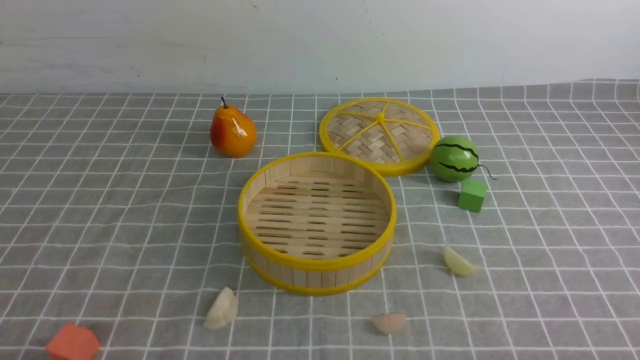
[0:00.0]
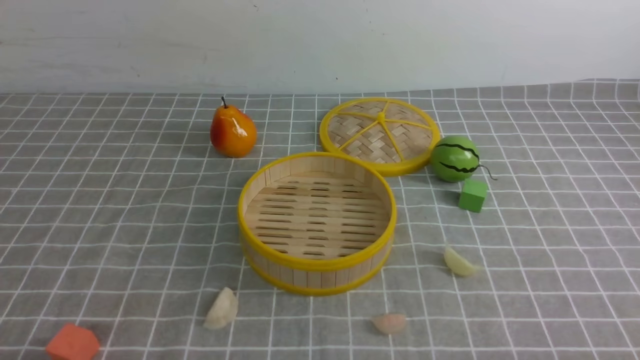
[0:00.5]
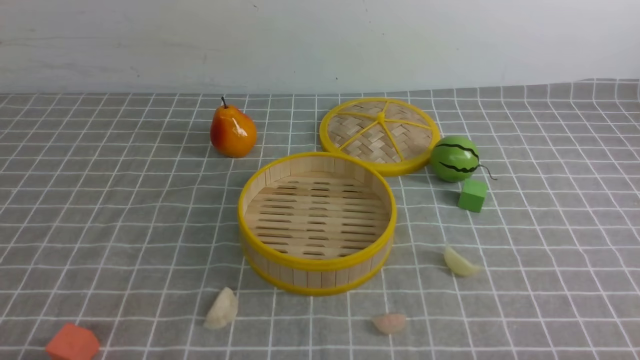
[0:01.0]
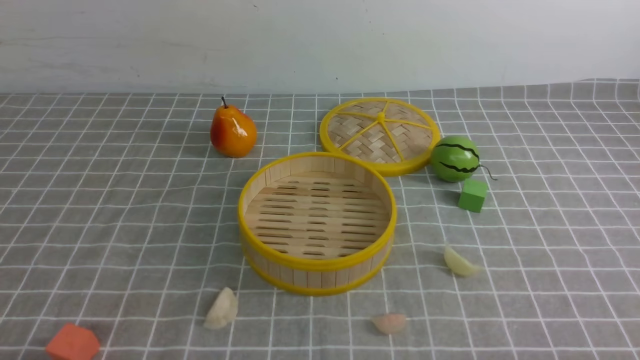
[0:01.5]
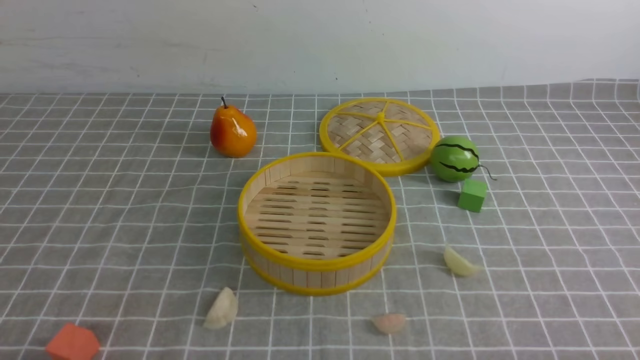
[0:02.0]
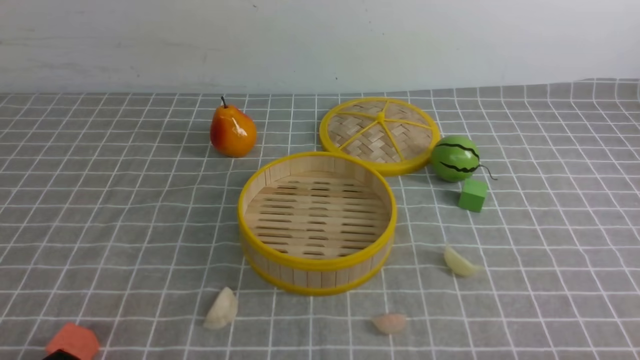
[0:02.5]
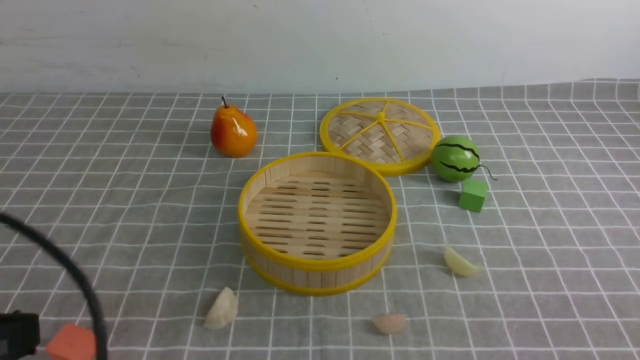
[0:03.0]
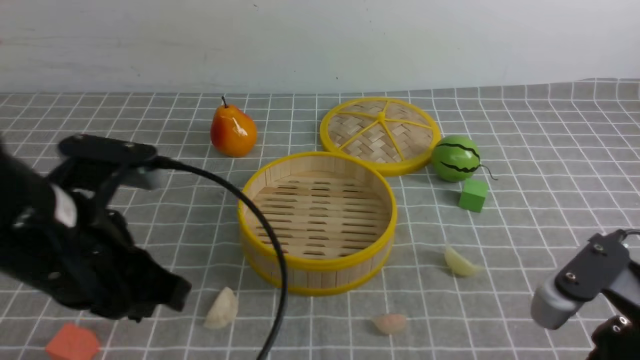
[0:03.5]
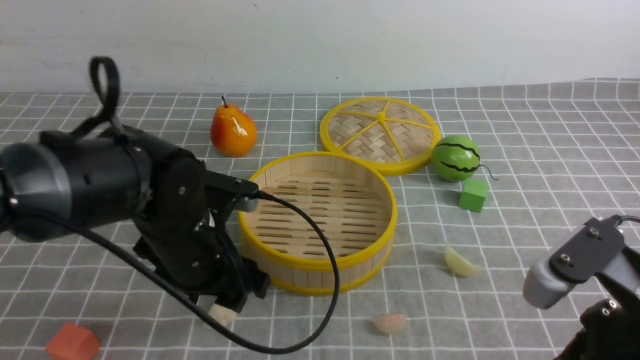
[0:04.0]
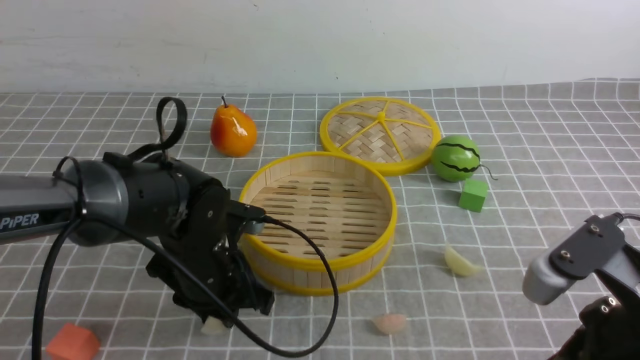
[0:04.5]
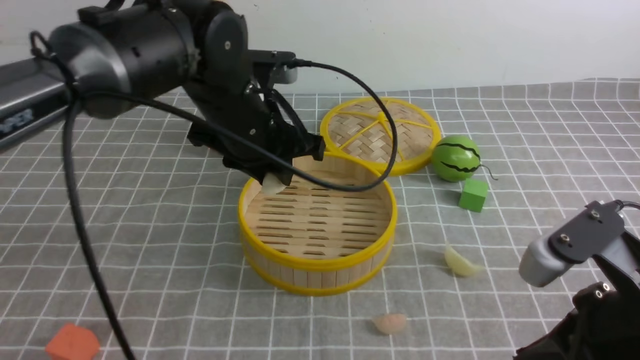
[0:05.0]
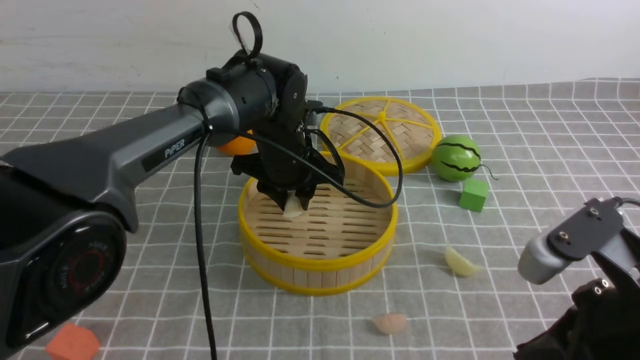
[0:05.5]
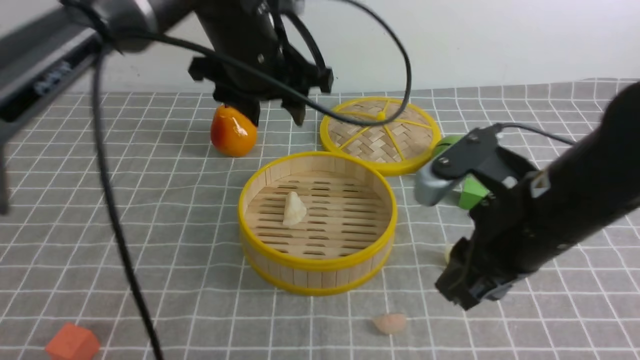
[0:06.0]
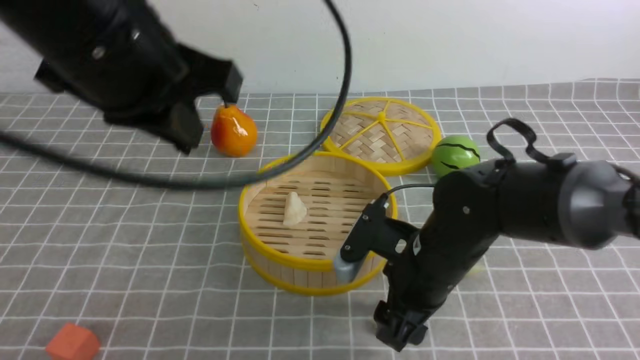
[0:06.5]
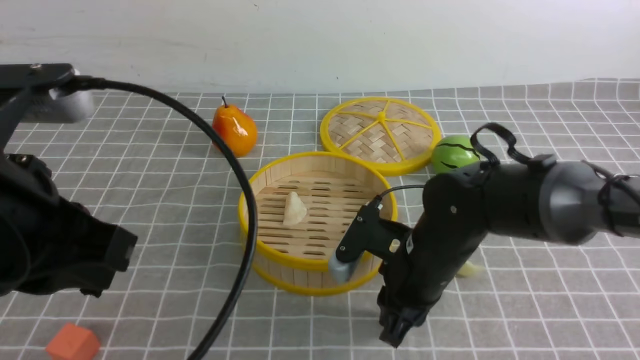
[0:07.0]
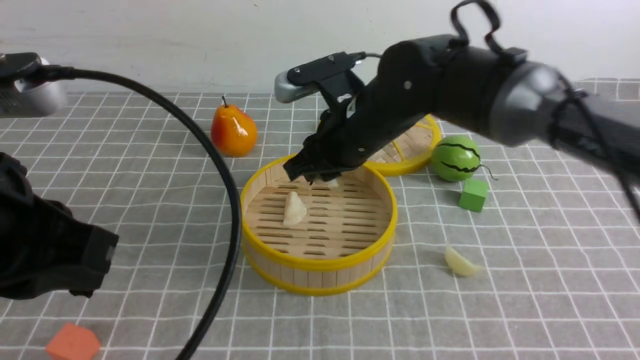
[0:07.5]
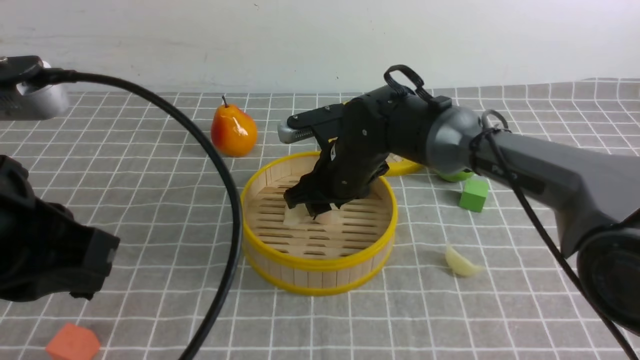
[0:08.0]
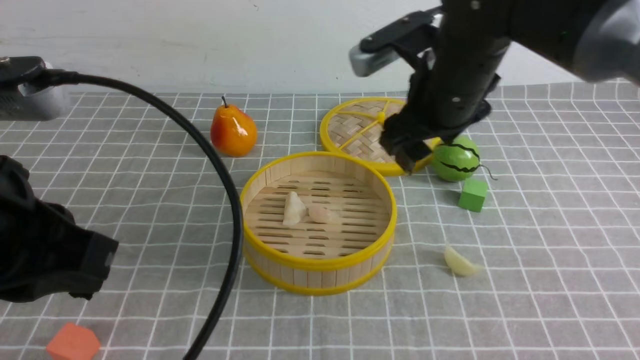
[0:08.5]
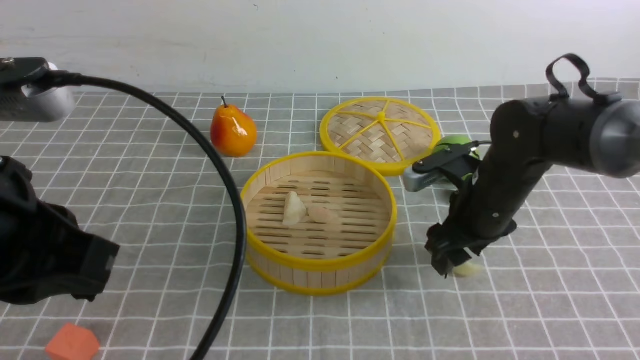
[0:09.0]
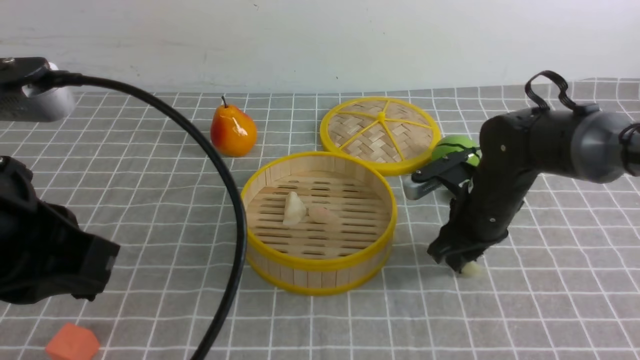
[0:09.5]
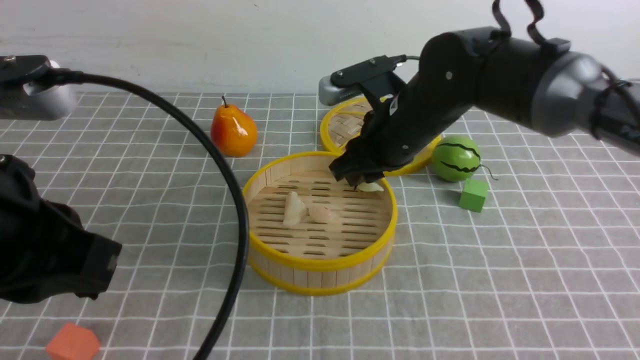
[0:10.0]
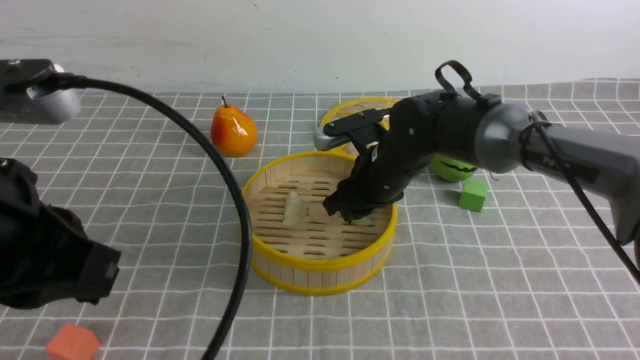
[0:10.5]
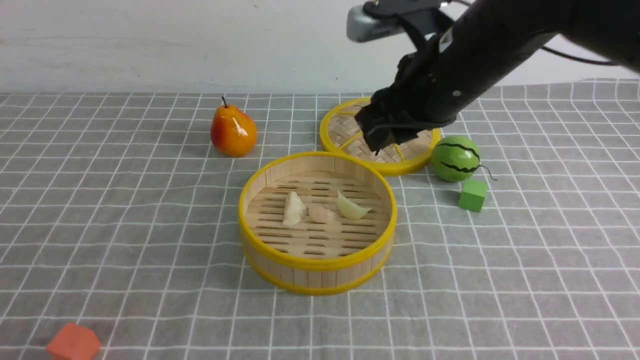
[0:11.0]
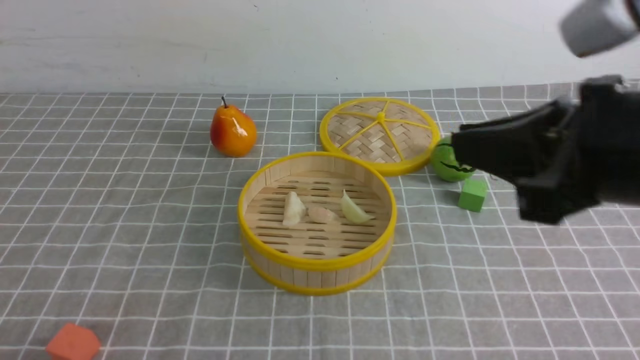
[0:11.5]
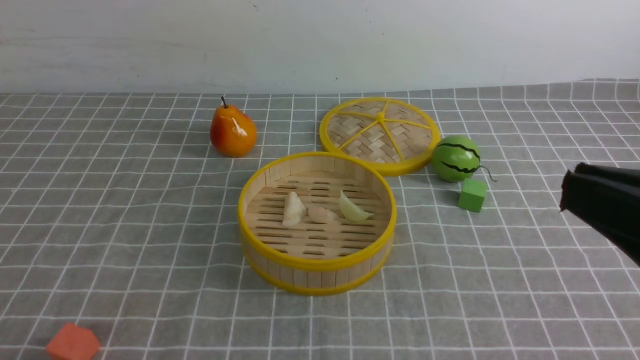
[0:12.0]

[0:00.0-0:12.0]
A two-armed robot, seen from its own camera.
Task of the whole recording: put the dumplings into the steamer on the table with the grey tablecloth.
Step, 0:00.0 to 0:04.5: use the left arm to grab a dumpling.
Step, 0:05.0 to 0:05.5: use the left arm to put the dumpling into the steamer.
Step, 0:06.5 to 0:07.0: use the right arm to grab a dumpling.
Step, 0:07.5 to 0:08.0: use the right arm to put the dumpling into the steamer.
Step, 0:08.5 to 0:09.5: use the right arm to grab a dumpling.
Step, 0:10.0 to 0:10.5: use the right arm to put the dumpling into the steamer.
0:02.0 to 0:04.0: The right gripper heads upward, to the left and forward, covering some 15 cm, and closes; the left gripper travels forward and to the right by approximately 25 cm, and opens its fingers.
0:04.0 to 0:06.0: The left gripper heads forward, upward and to the right, covering some 20 cm, and closes, then opens again. The right gripper is displaced forward by roughly 10 cm, and opens up.
0:06.0 to 0:08.0: The left gripper is displaced backward and to the left by some 30 cm, and closes its fingers. The right gripper travels forward, to the left and downward by approximately 25 cm.
0:08.0 to 0:10.0: The right gripper heads to the right, covering roughly 5 cm, and opens, then closes again.
0:10.0 to 0:12.0: The right gripper shifts approximately 30 cm backward and to the right. The left gripper travels backward, downward and to the left by approximately 20 cm.

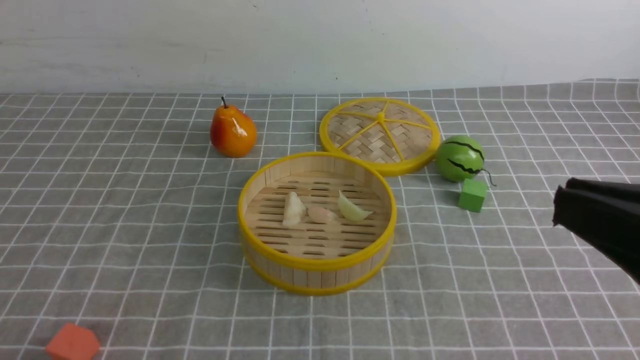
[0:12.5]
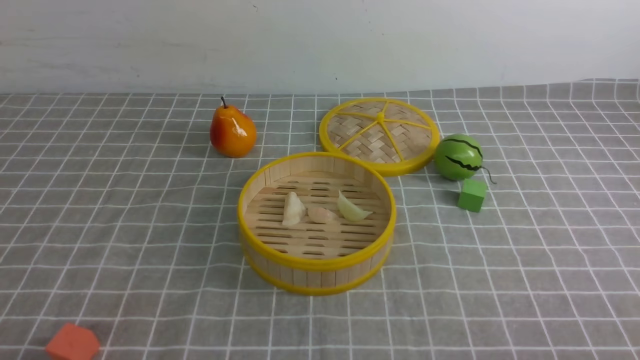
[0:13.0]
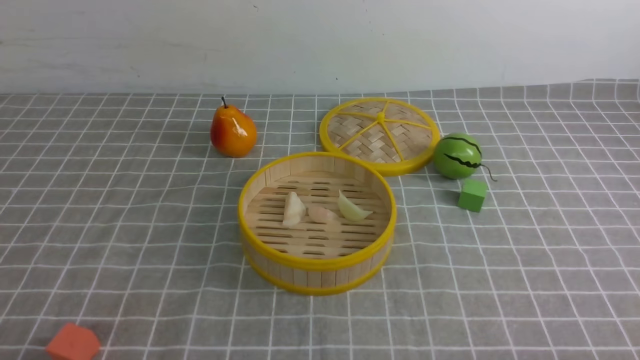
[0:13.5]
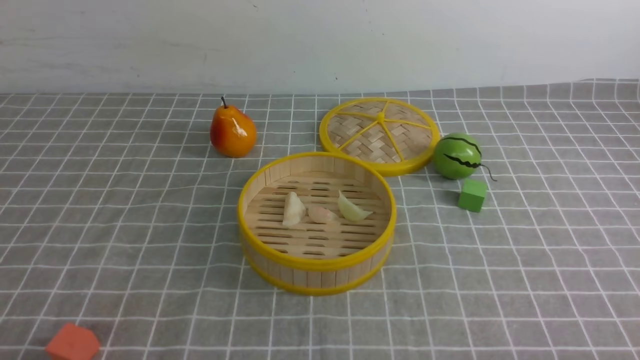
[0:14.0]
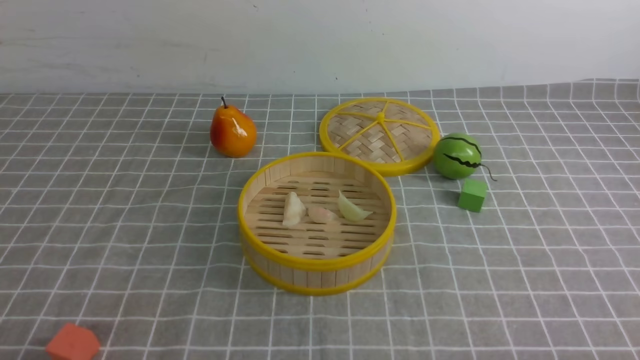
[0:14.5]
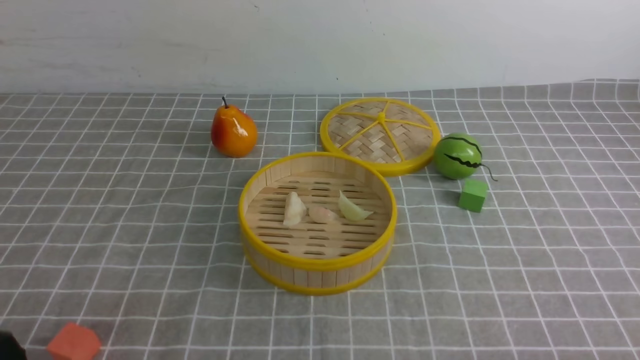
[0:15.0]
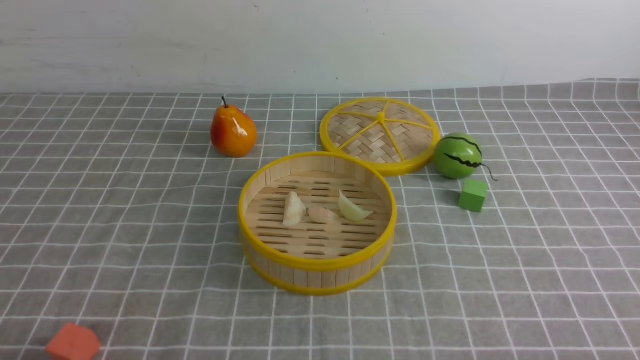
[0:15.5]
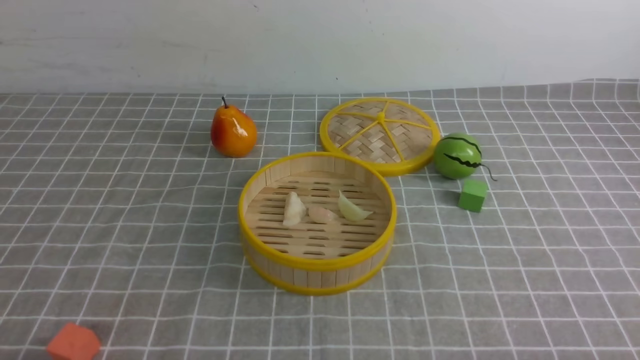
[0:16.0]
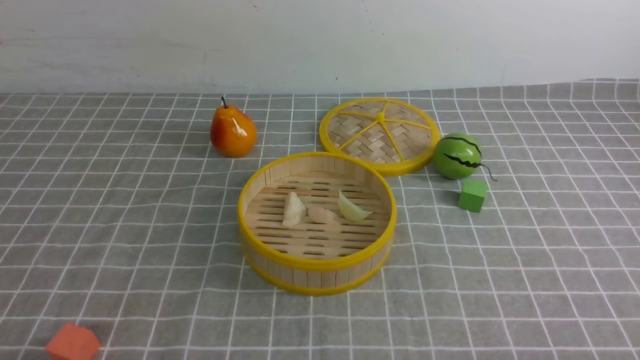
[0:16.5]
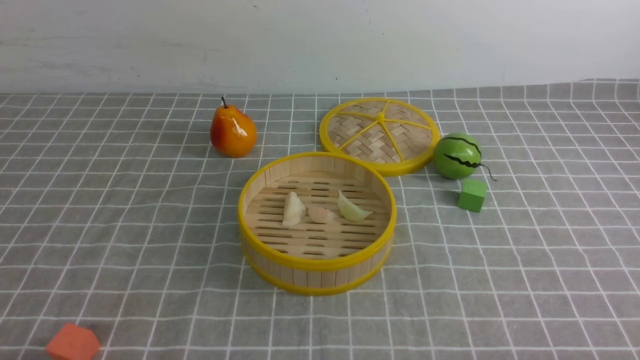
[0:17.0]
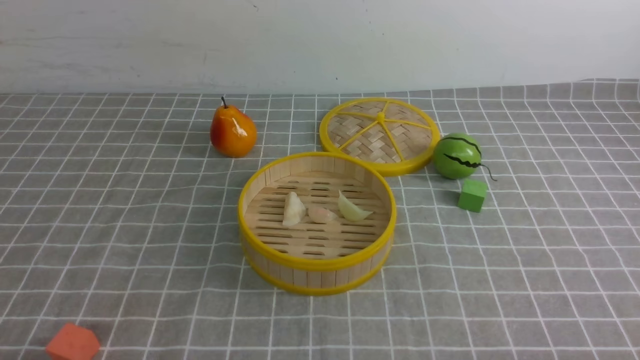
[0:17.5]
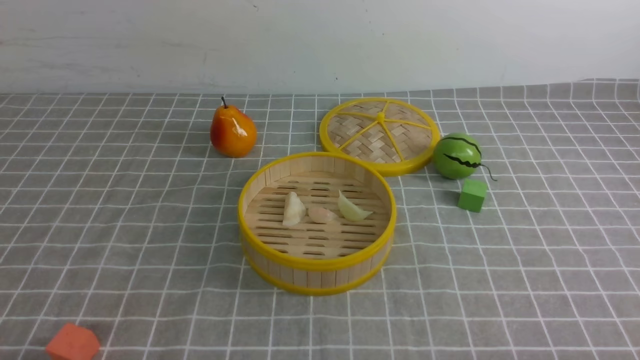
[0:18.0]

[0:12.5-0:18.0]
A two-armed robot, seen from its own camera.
Task of the whole recording: put the dumplings into the steamer on the table with the grey tablecloth.
0:12.5 to 0:14.5: The right gripper shifts roughly 20 cm downward and to the right.
0:16.0 to 0:18.0: Both grippers stay about where they are.

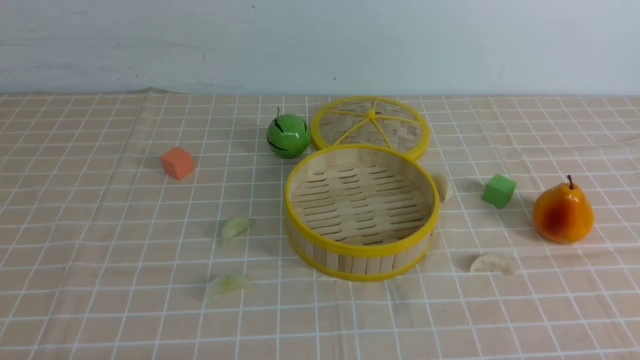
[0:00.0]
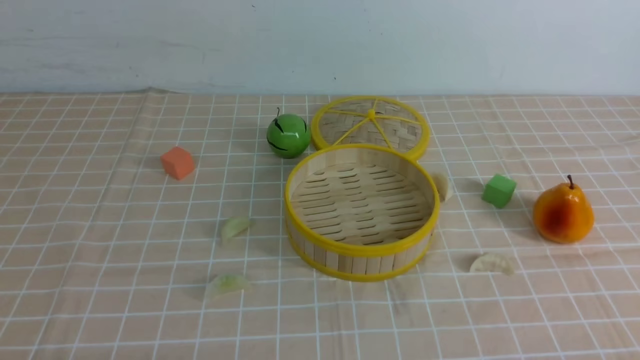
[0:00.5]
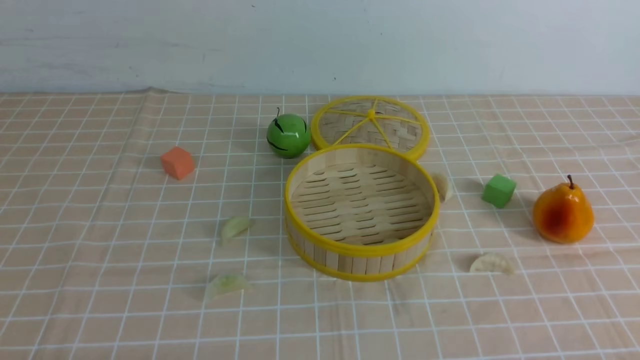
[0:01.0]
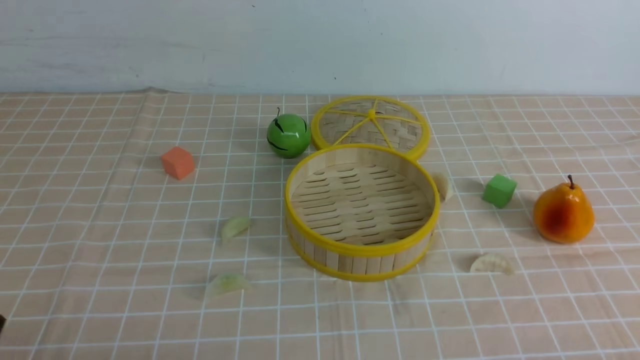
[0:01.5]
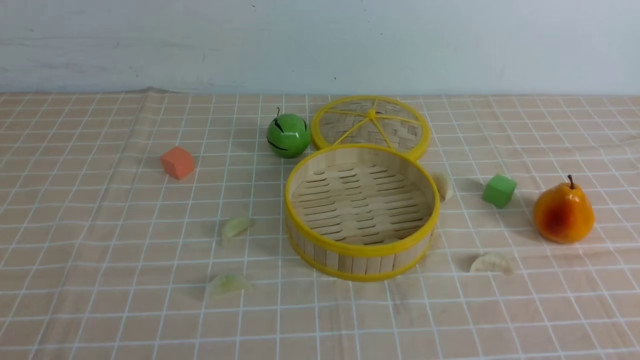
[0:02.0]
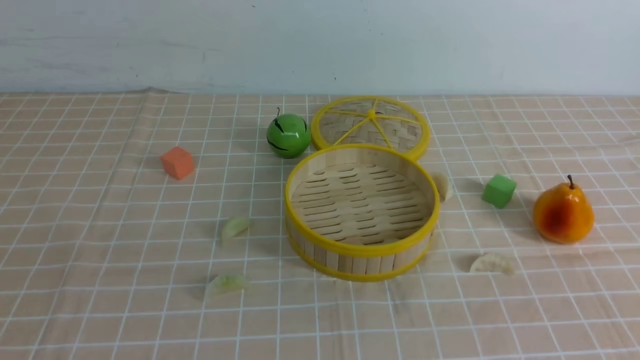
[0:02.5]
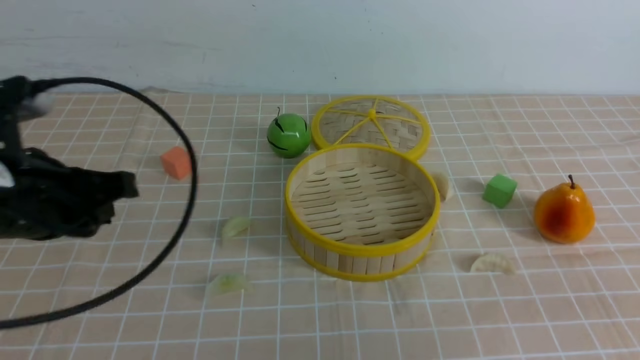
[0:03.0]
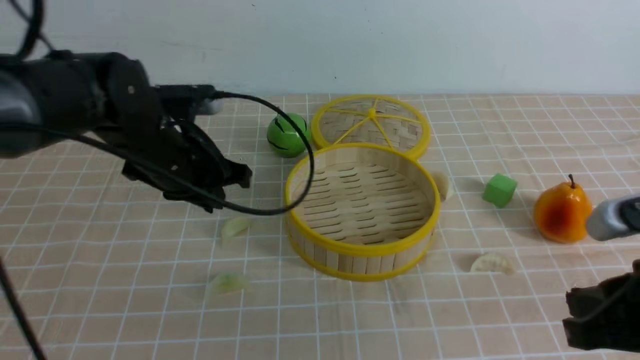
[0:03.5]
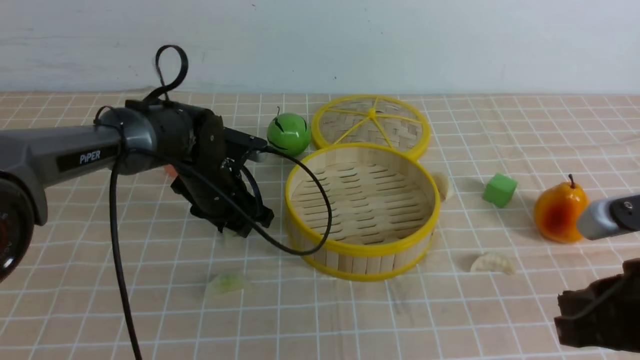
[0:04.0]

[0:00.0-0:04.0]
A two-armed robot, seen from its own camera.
Task of the whole recording: put the dumplings into the steamer on the table with the brown tablecloth.
Step, 0:00.0 to 0:03.5: use the left arm to grab a dumpling.
0:02.0 to 0:04.0: The left gripper moves forward, about 40 cm, and closes, then opens again. Meanwhile the right gripper goes roughly 15 cm forward and to the left.
